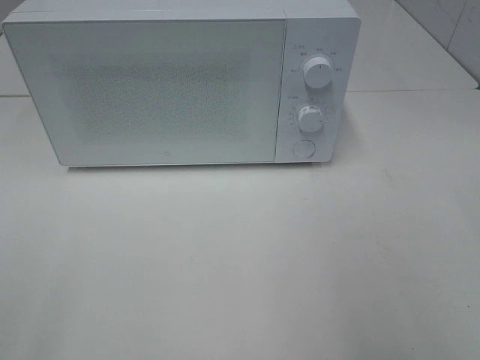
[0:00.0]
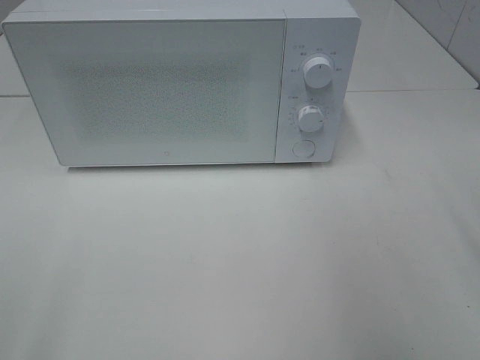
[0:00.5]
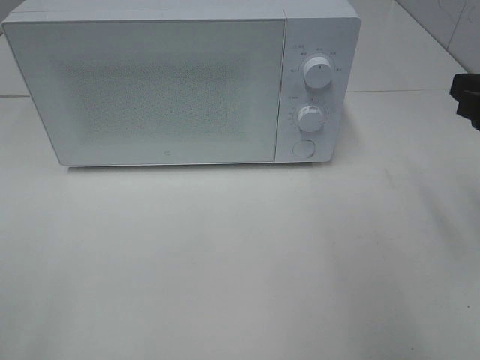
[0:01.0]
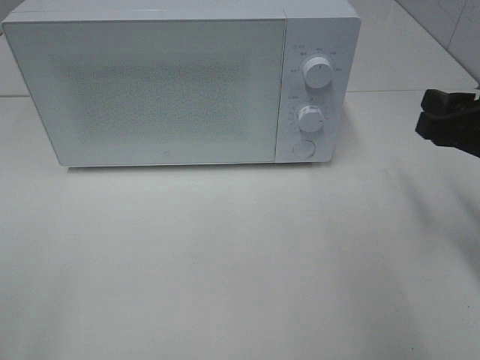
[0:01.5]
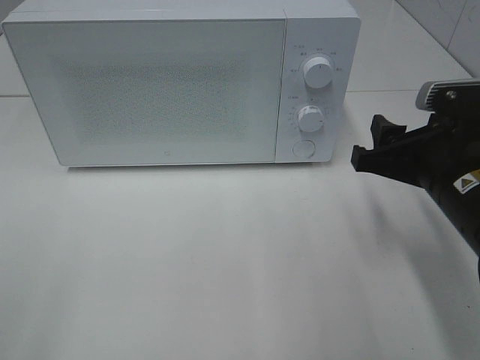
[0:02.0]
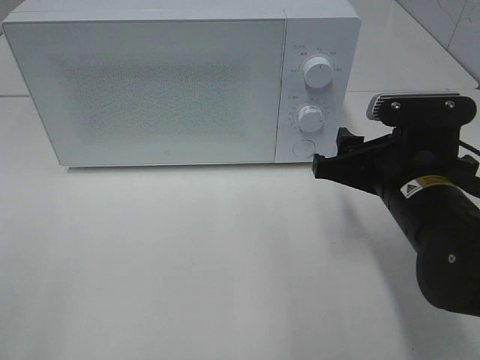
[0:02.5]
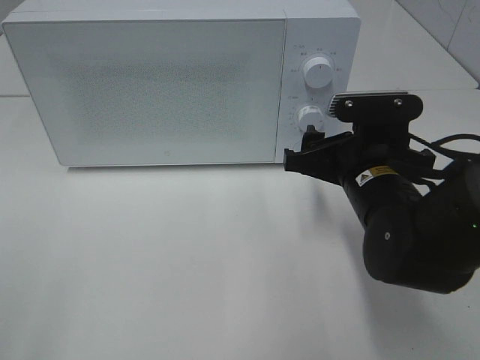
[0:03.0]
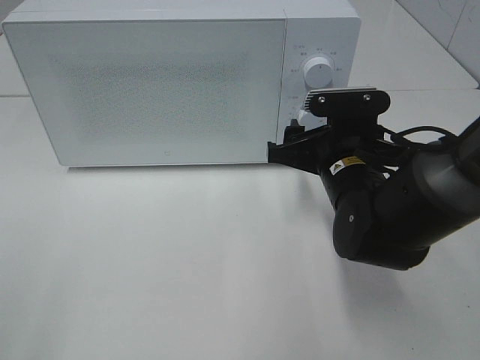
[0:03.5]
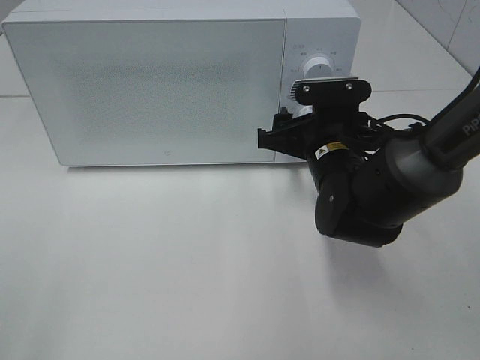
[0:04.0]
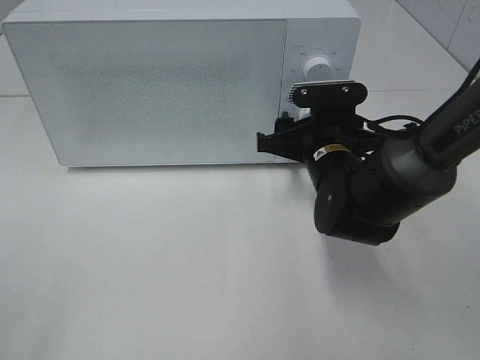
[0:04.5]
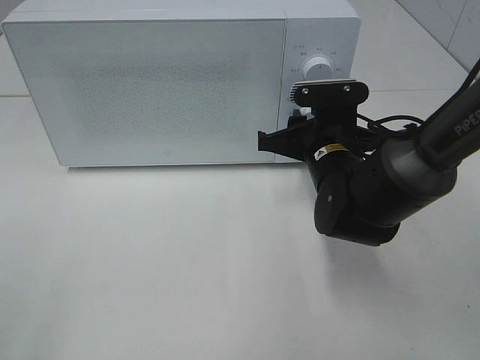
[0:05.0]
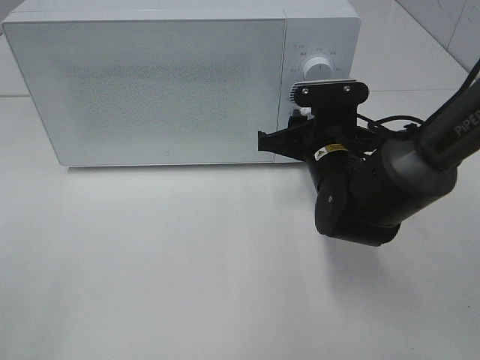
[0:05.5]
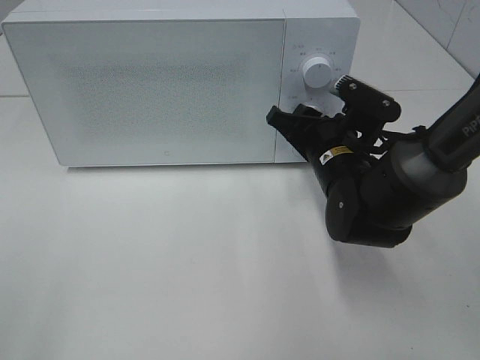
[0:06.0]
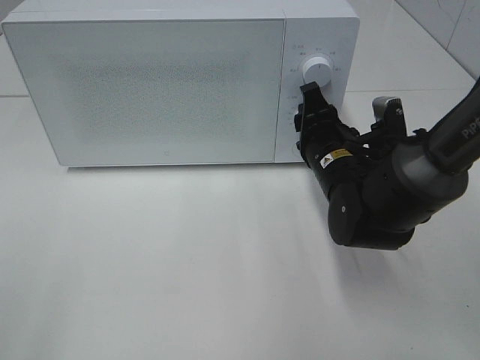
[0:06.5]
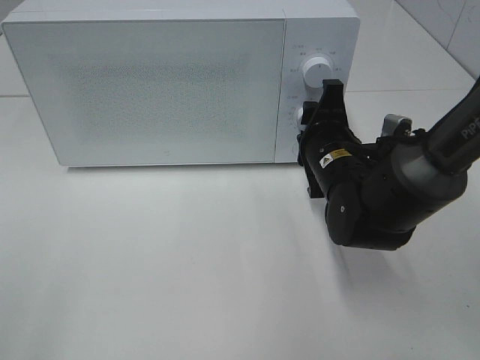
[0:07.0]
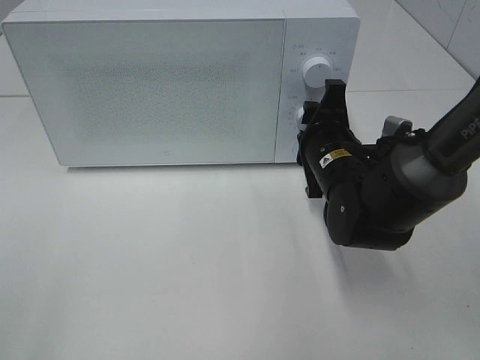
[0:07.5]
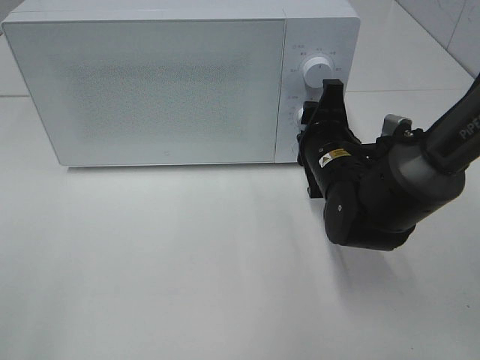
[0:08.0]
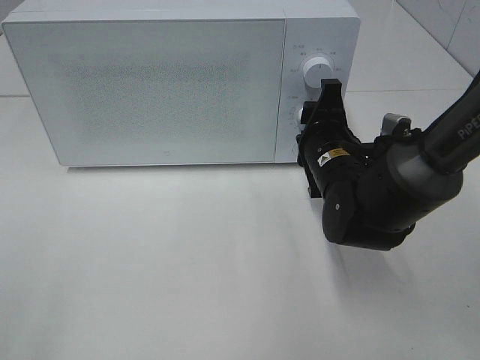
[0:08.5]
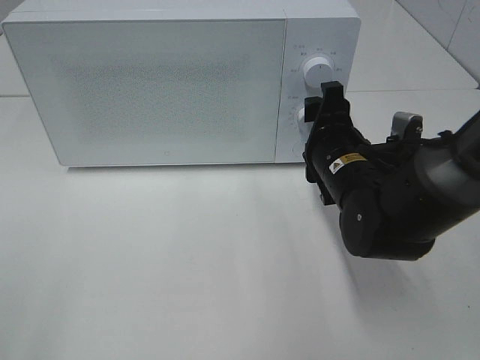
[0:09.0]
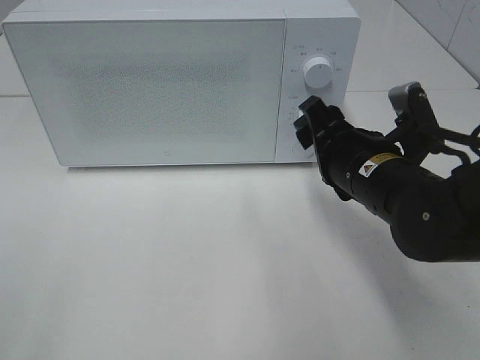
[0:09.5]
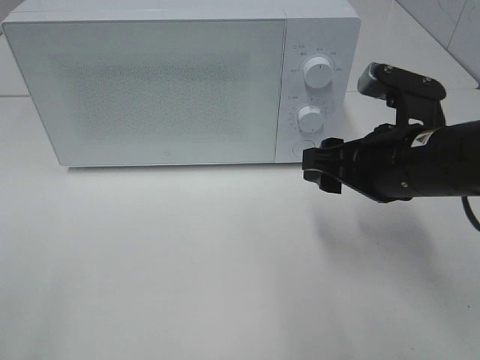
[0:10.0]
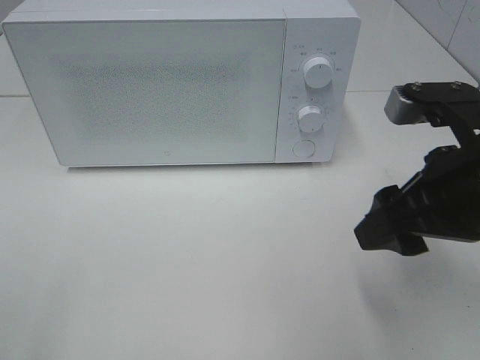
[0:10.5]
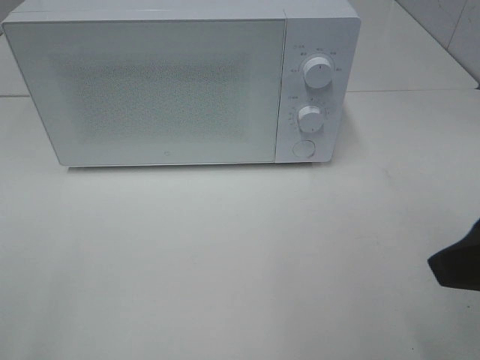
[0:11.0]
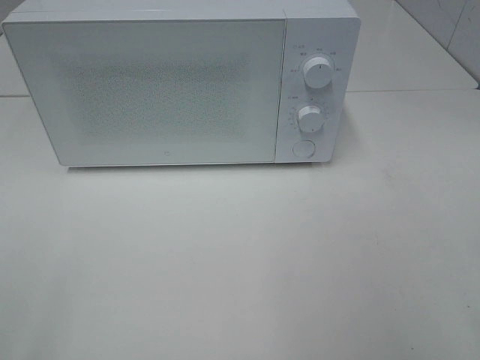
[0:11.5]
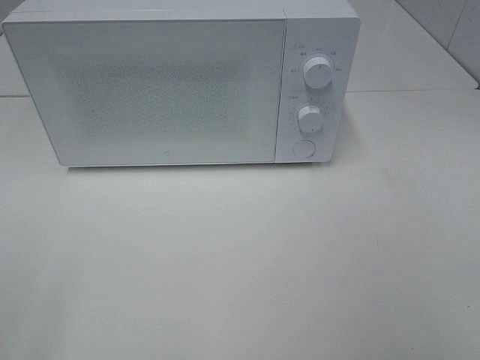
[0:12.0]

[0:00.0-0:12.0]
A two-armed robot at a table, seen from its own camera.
Task of the whole recording: Heat the burger.
Step, 0:00.0 to 0:08.5: Right hand: twist timer button.
0:00.0 to 0:02.0: The right gripper shifts about 20 cm downward, forward and to the left.
0:02.0 to 0:04.0: The right gripper is displaced forward and to the left by about 15 cm.
0:04.0 to 0:06.0: The right gripper closes.
0:08.0 to 0:10.0: The right gripper shifts roughly 10 cm backward, upward and to the right.
0:10.0 to 0:12.0: The right gripper shifts some 30 cm backward, to the right and upward.

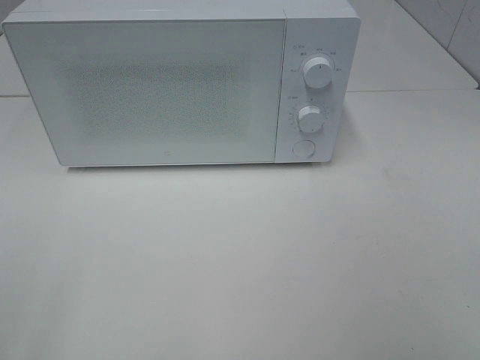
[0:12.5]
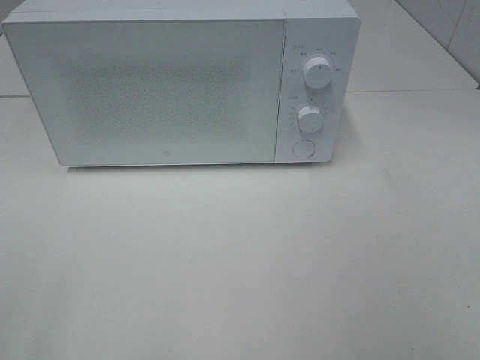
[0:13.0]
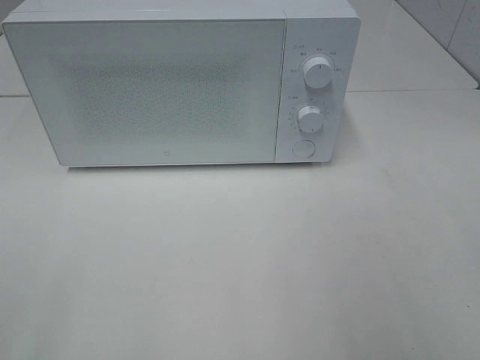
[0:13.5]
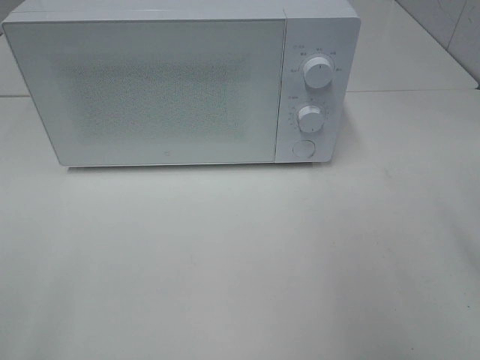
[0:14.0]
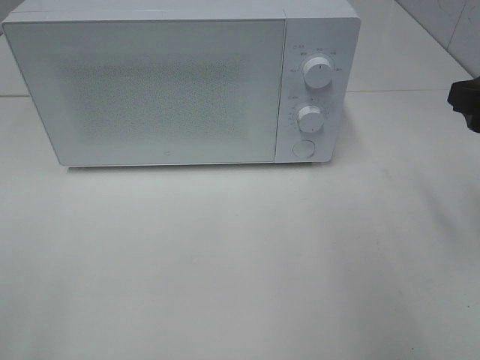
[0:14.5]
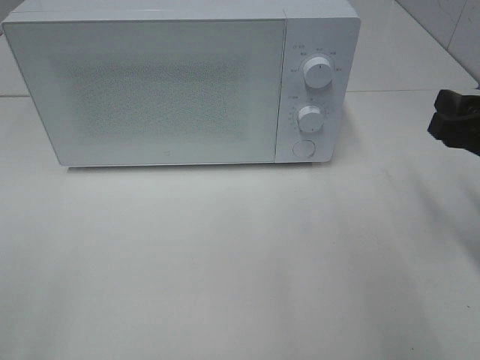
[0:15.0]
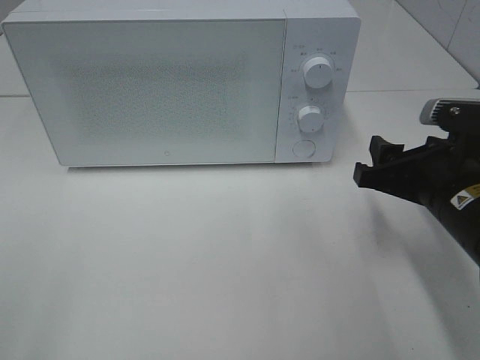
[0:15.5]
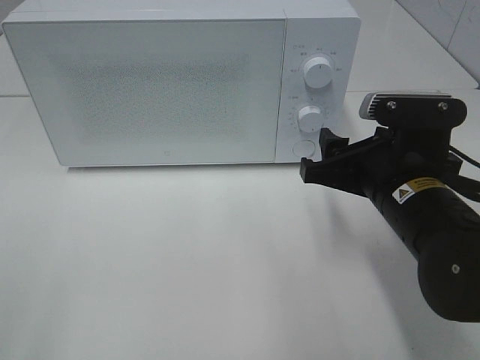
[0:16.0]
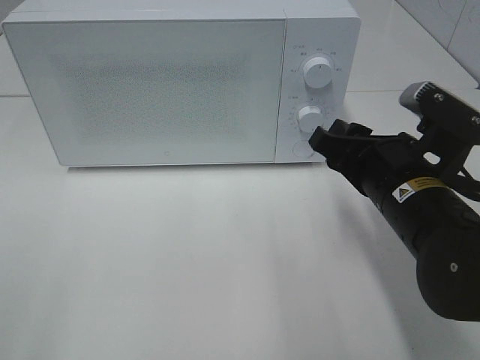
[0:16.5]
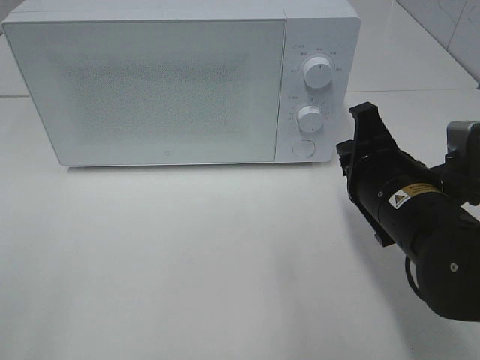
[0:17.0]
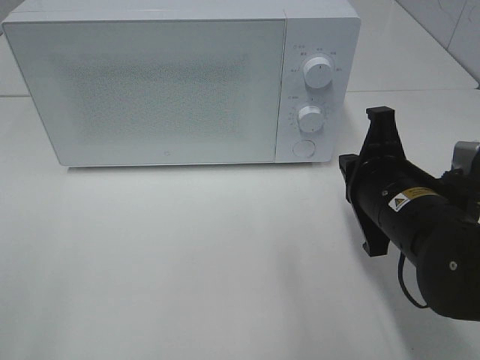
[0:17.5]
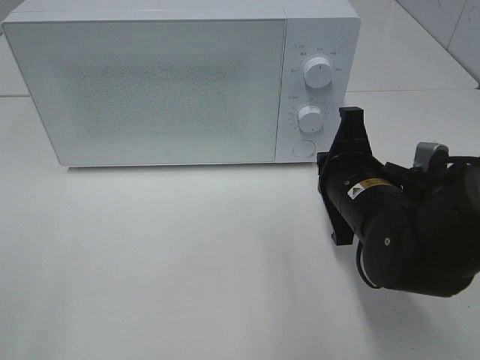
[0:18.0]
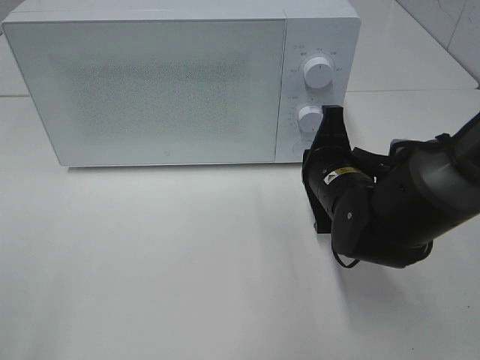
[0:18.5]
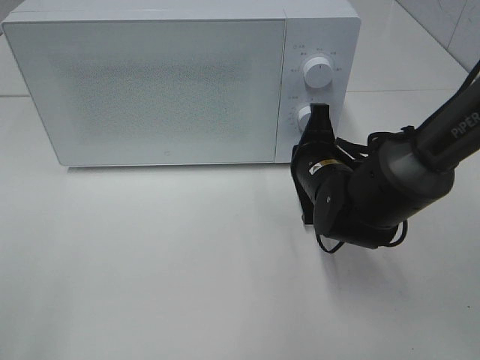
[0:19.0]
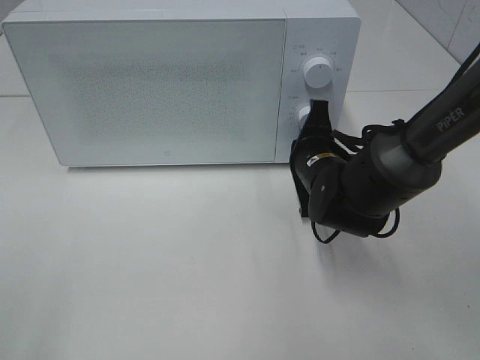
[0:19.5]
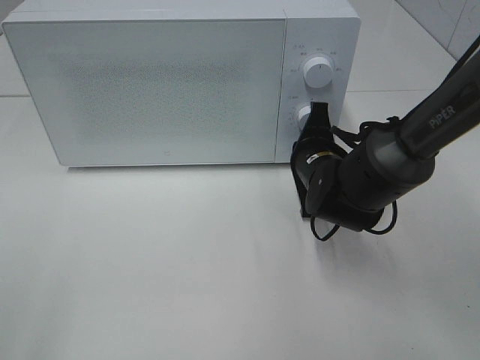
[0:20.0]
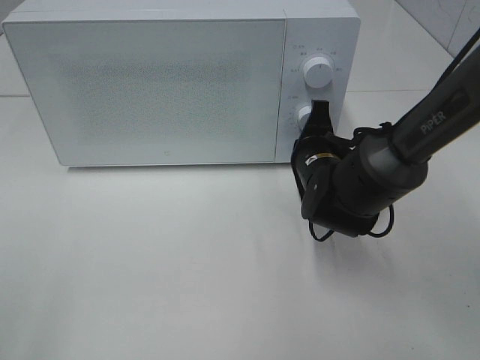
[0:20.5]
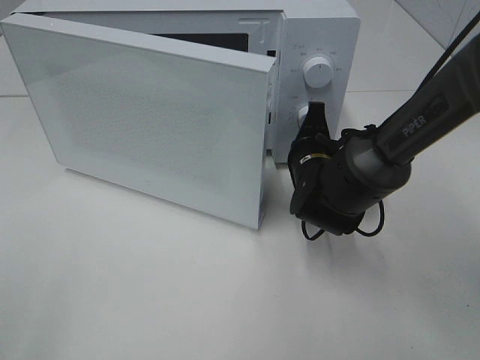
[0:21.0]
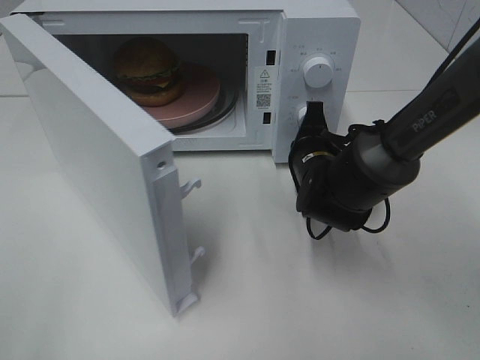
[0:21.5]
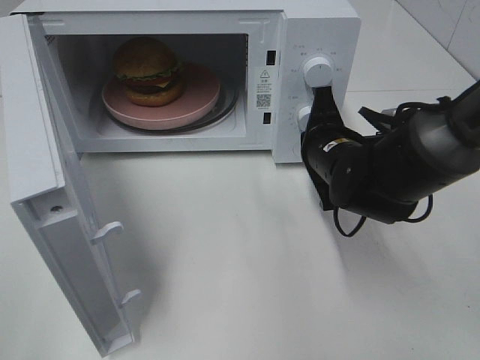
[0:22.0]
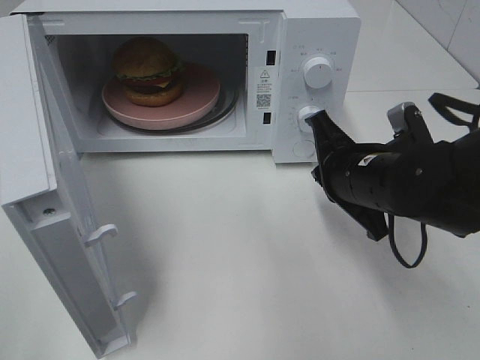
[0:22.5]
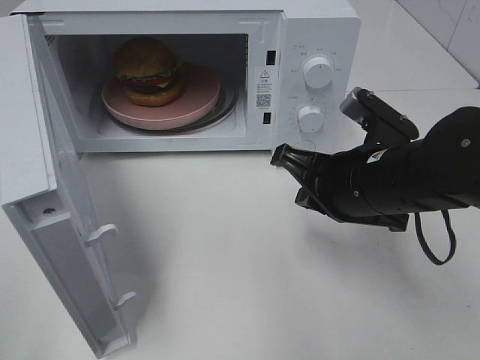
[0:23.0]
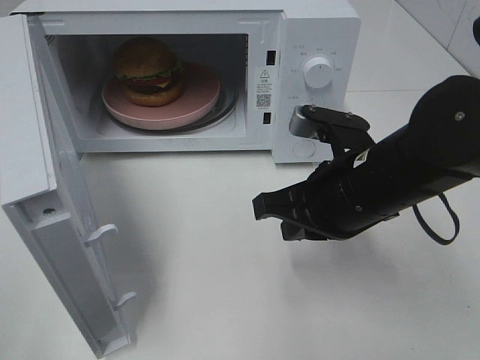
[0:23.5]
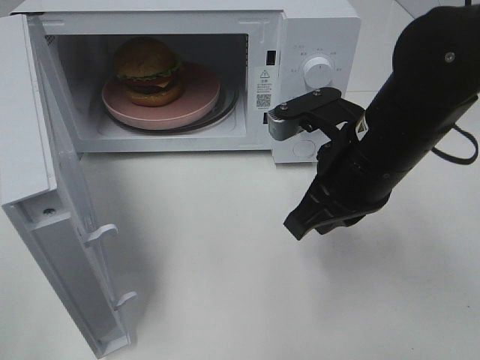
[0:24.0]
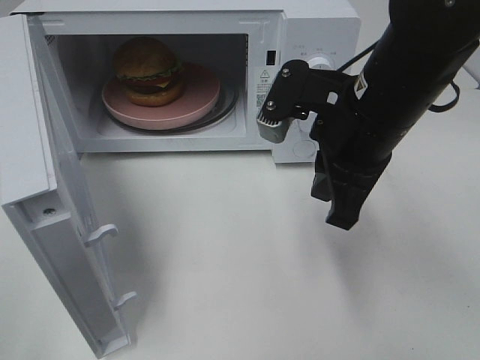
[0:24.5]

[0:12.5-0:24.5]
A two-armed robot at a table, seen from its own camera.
Task of the whole recording: Heat the burger.
Step, 0:12.5 to 0:22.0: Right hand: press the switch.
0:12.5 to 0:14.5: The right gripper moves forward, about 20 cm.
0:14.5 to 0:16.5: The right gripper moves to the left and downward, roughly 15 cm.
0:16.5 to 0:18.5: The right gripper goes approximately 10 cm forward and downward, and closes up.
0:18.5 to 0:20.5: The right gripper shifts approximately 5 cm forward.
0:20.5 to 0:22.5: The right gripper is displaced backward and upward by roughly 10 cm.
0:22.5 to 0:24.5: The right gripper goes approximately 10 cm upward.

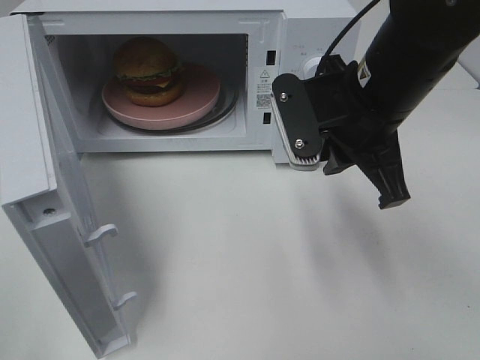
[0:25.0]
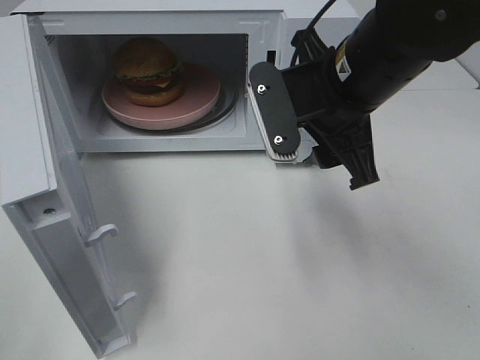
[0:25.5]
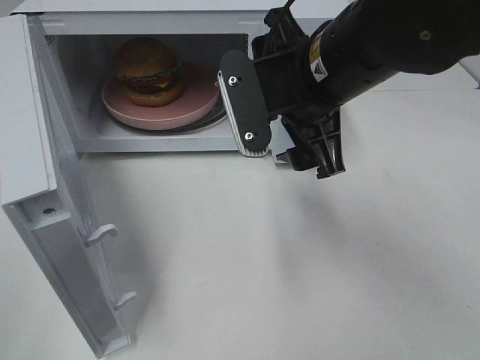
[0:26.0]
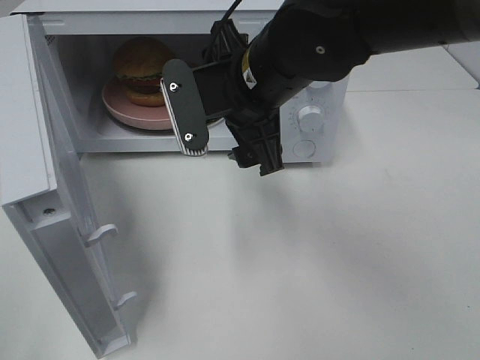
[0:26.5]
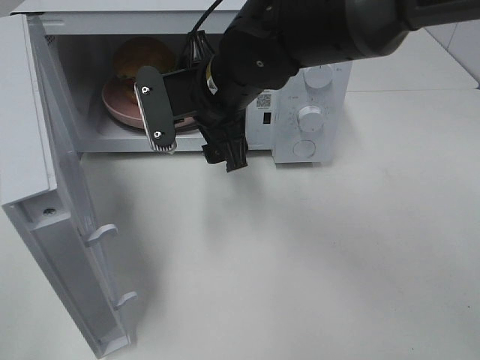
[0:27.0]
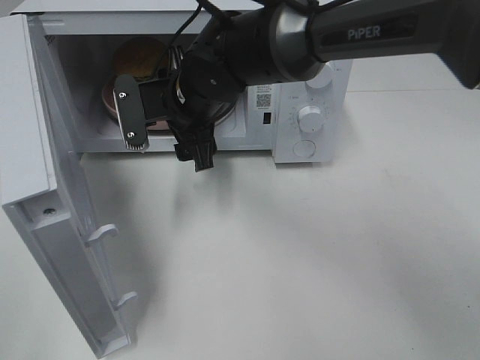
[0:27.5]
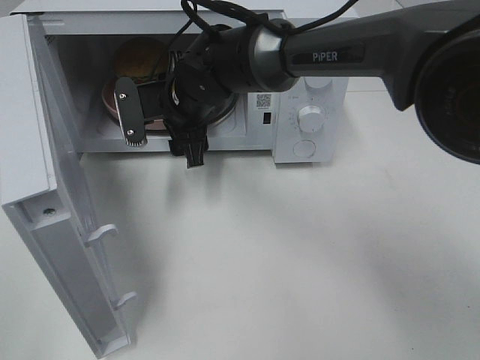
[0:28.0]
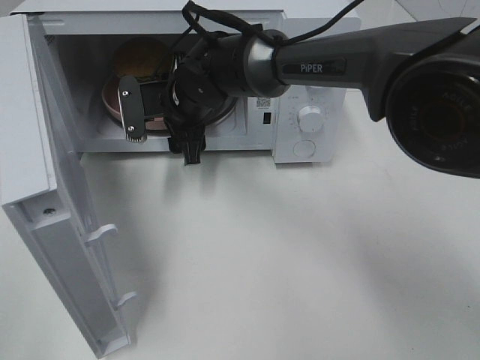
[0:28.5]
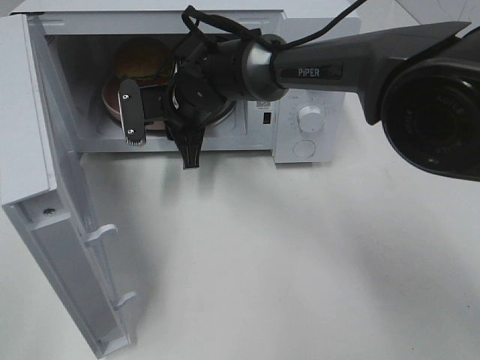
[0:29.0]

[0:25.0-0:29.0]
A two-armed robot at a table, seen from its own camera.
Task of the whole recording: Heat the burger.
0:25.0 to 0:27.0: The right gripper shifts approximately 15 cm to the left and forward, and opens up.
0:27.0 to 0:29.0: The right gripper goes roughly 10 cm forward and downward, and closes its fingers.
